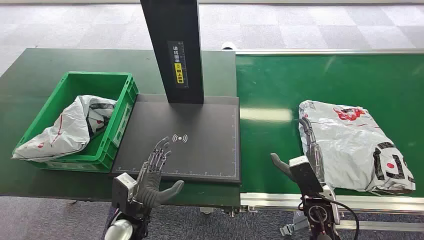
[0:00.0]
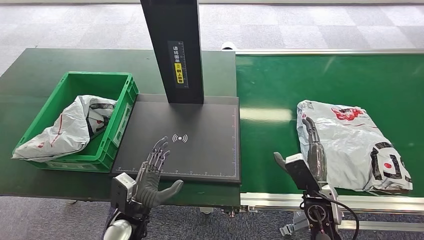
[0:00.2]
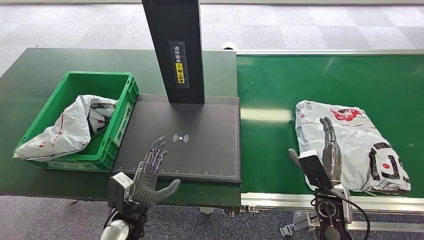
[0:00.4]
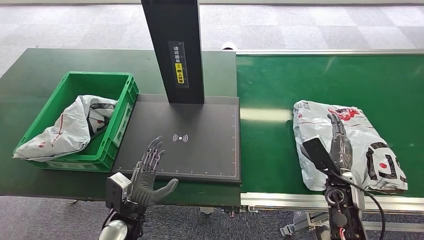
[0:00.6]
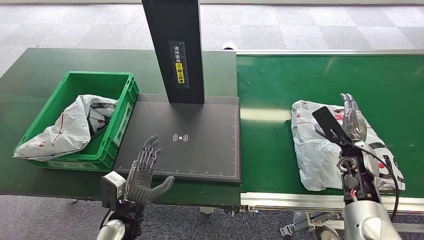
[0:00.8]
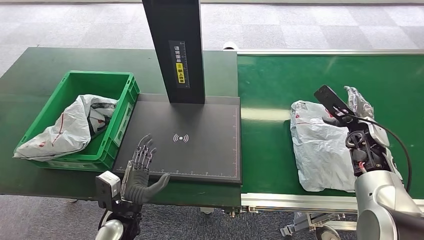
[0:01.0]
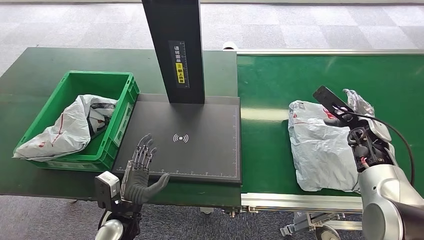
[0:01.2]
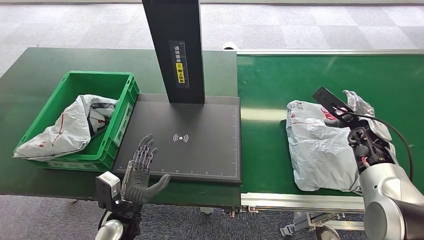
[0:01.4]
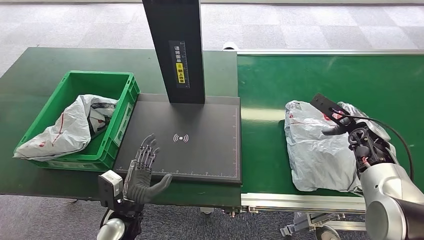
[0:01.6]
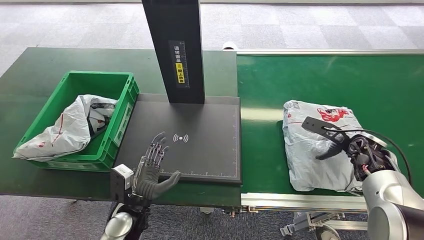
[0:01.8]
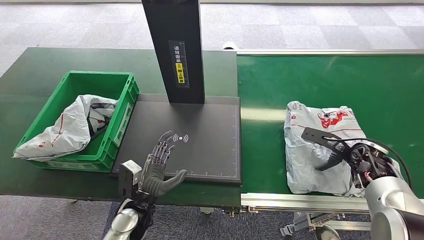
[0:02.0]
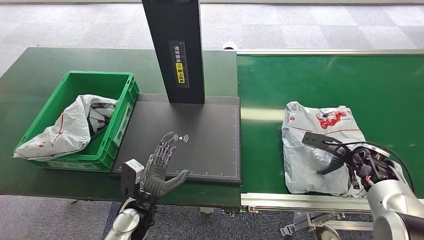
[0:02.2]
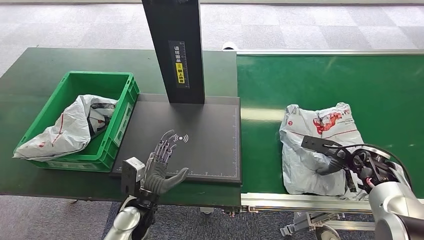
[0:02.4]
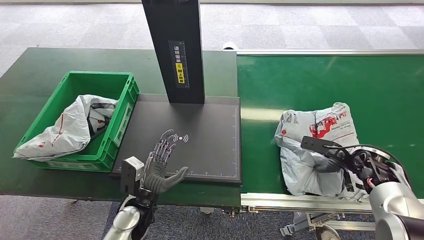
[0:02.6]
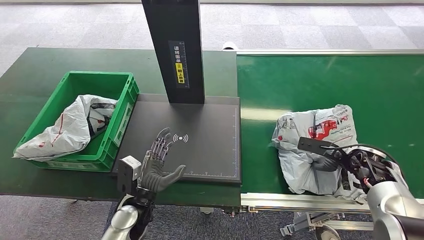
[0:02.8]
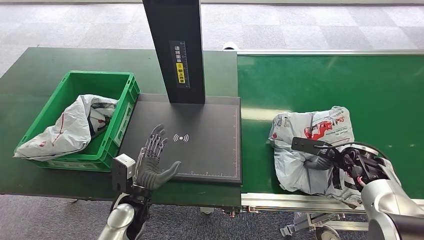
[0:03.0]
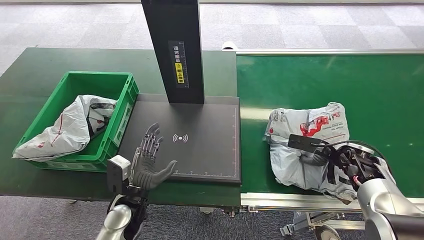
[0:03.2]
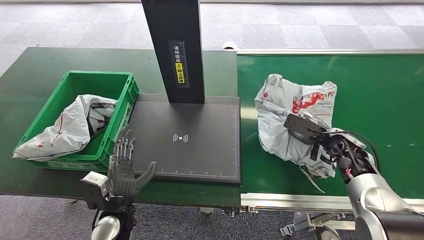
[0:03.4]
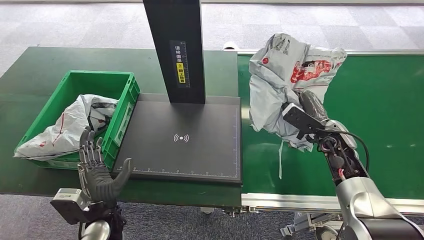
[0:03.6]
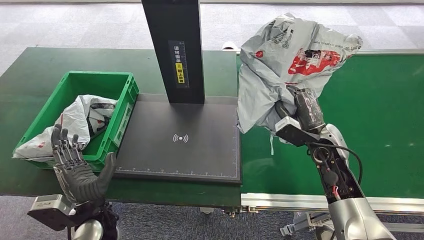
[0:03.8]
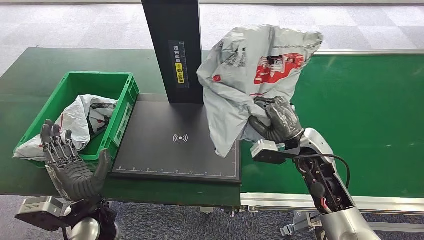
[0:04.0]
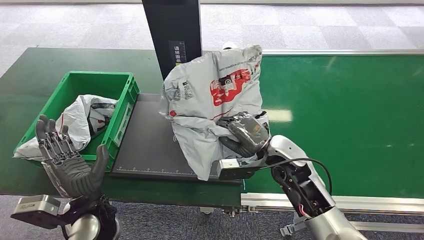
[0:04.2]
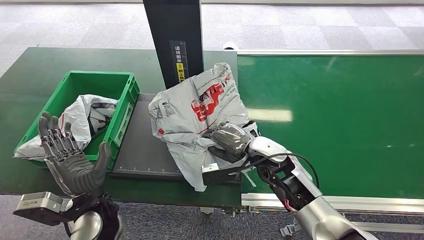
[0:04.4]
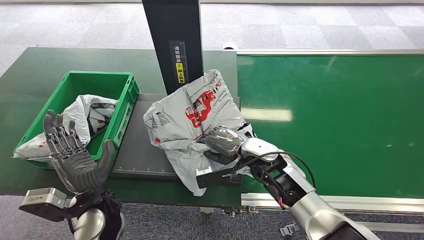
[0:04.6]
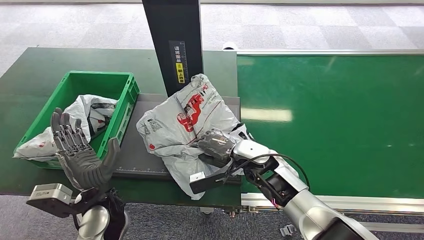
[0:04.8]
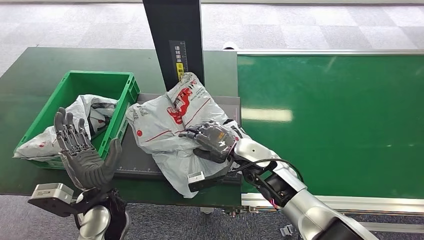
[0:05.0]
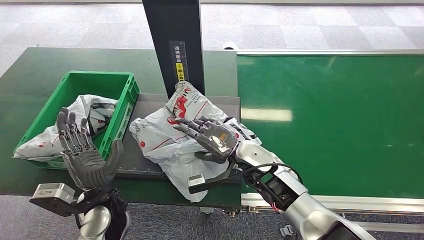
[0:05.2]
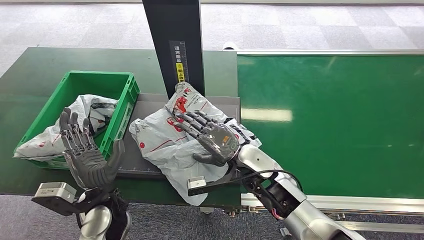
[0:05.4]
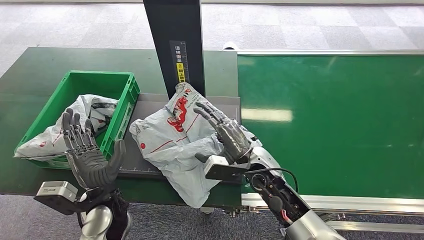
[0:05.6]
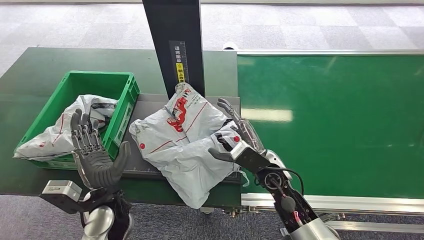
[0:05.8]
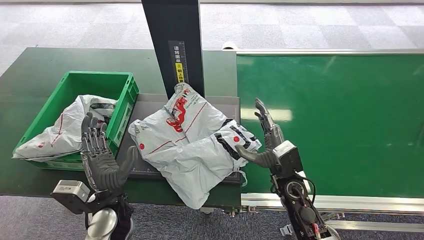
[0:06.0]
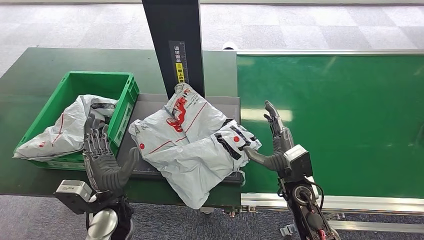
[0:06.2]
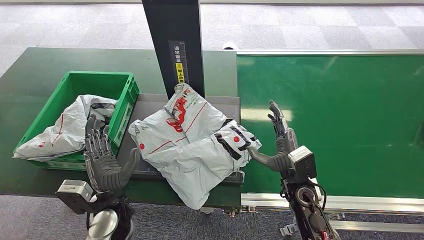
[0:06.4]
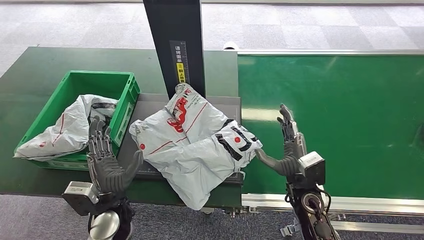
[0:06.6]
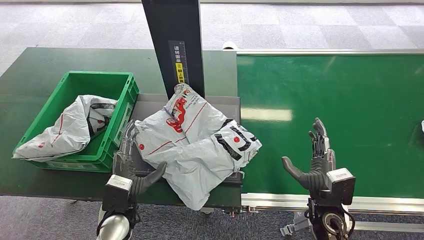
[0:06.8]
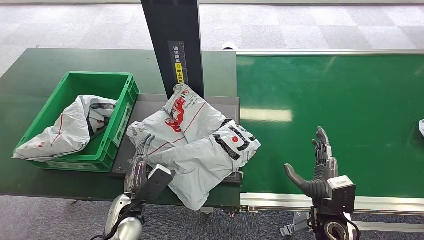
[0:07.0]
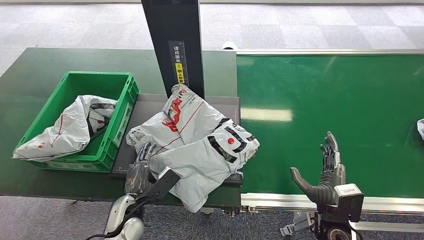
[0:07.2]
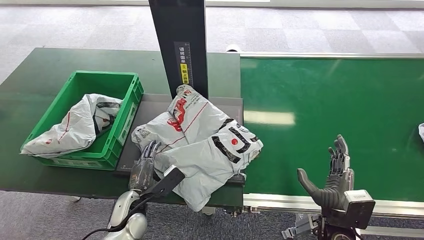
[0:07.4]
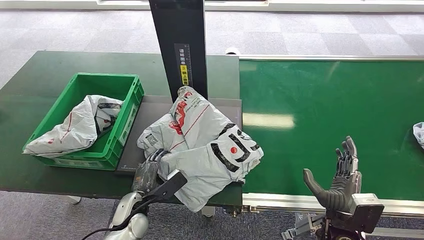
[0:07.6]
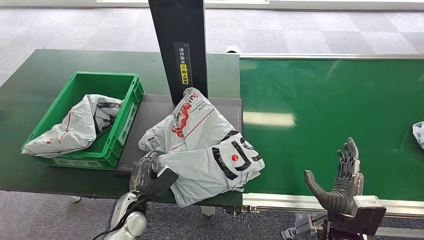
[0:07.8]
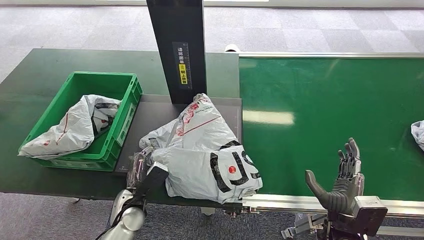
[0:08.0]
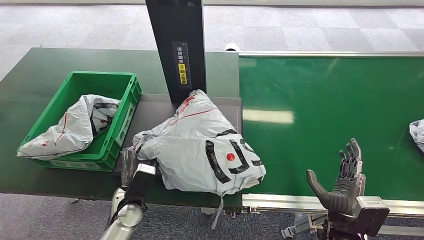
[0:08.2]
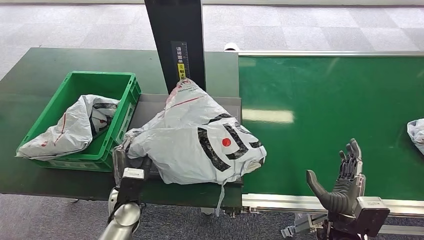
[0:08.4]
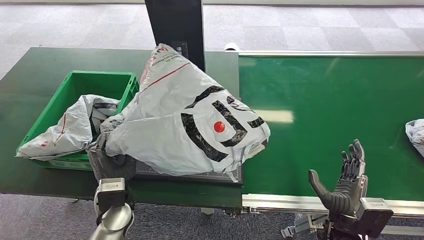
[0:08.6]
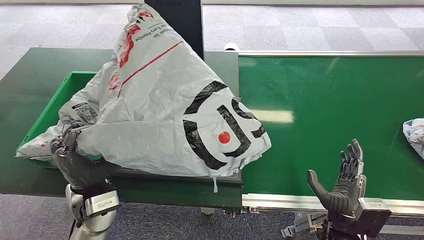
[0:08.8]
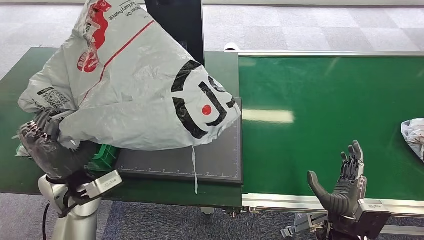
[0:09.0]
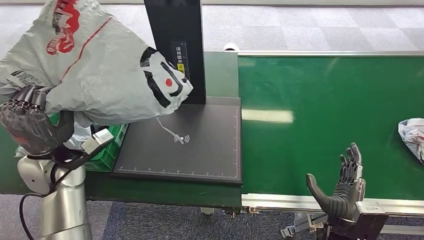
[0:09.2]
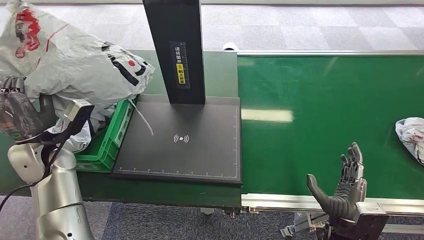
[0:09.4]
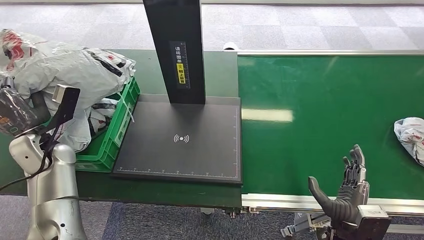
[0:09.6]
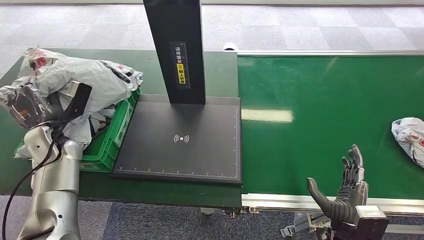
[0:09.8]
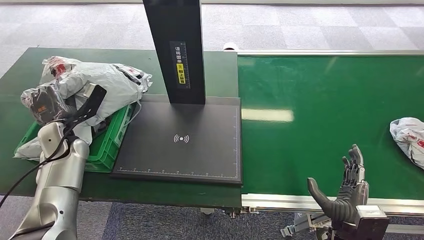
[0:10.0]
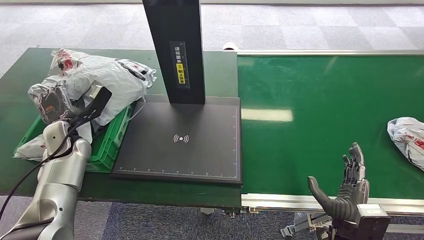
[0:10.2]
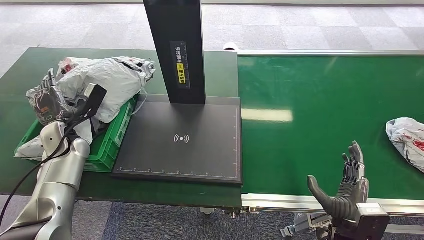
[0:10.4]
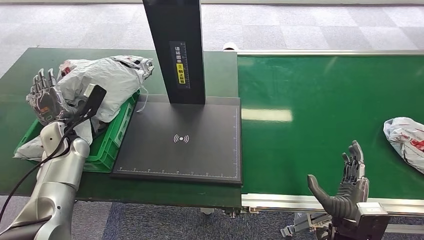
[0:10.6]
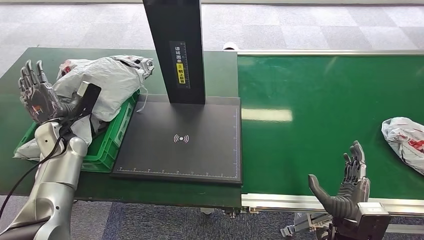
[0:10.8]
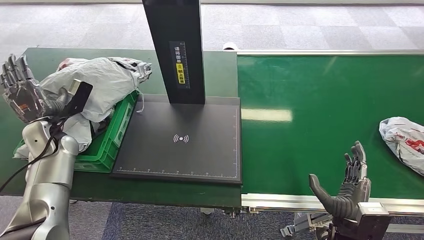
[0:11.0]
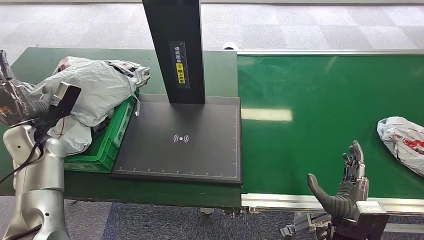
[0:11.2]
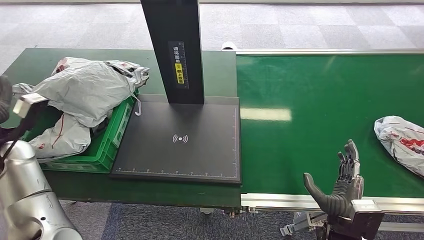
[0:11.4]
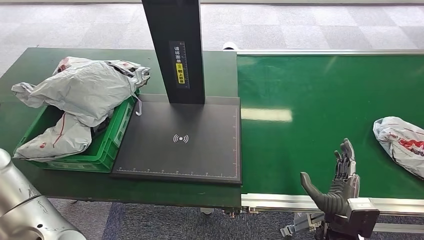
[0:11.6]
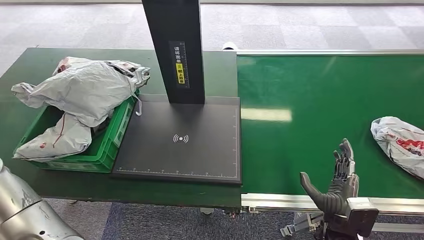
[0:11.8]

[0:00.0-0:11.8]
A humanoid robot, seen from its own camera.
Task of the whole recording: Weigh the package on the weighing device and place it in the left basket.
Step, 0:00.0 to 0:03.6: Pick up the package from the conveyor belt.
Step, 0:03.8 to 0:06.0: Place the package onto the inbound machine.
Step, 0:06.2 to 0:08.8: Pick up the package from the inbound machine.
Step, 0:09.0 to 0:11.6: Place the package into the parcel locker.
0:01.4 to 0:03.0: The right hand goes roughly 5 cm downward.
0:10.4 to 0:11.8: The left hand goes some 15 cm backward, upward and to the left.
